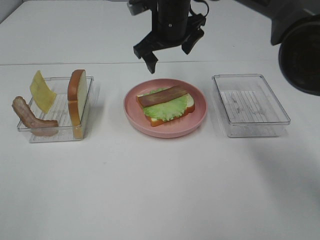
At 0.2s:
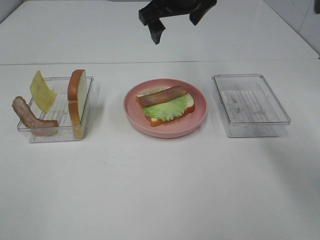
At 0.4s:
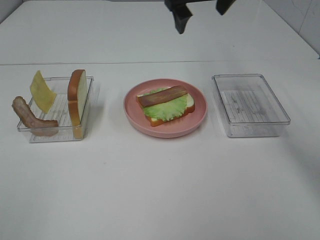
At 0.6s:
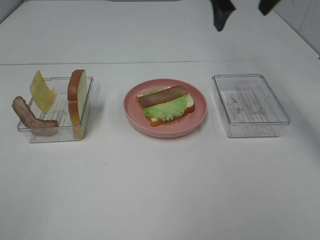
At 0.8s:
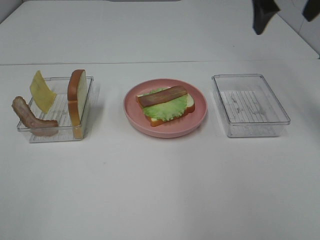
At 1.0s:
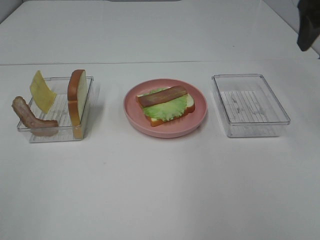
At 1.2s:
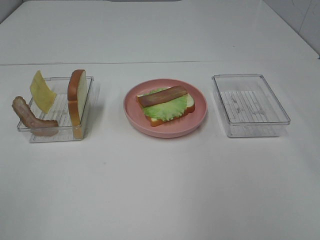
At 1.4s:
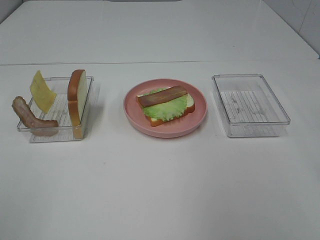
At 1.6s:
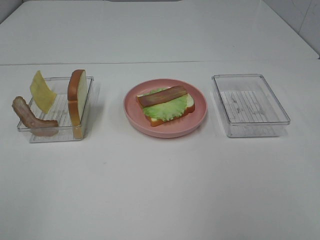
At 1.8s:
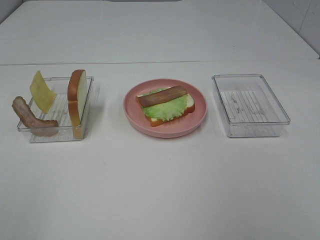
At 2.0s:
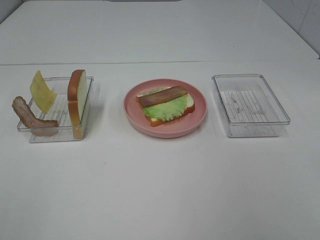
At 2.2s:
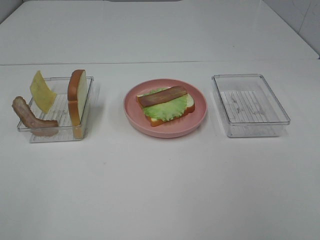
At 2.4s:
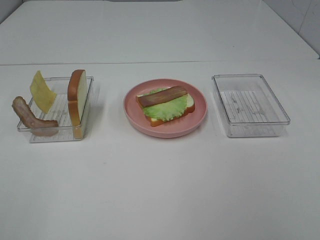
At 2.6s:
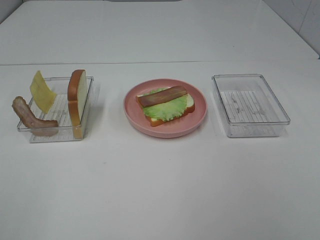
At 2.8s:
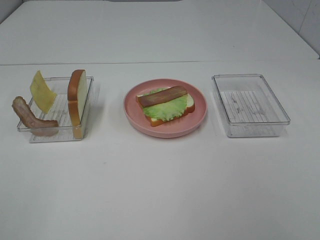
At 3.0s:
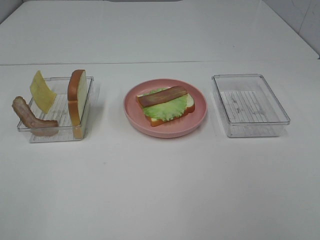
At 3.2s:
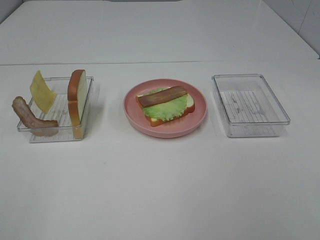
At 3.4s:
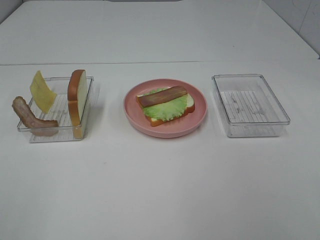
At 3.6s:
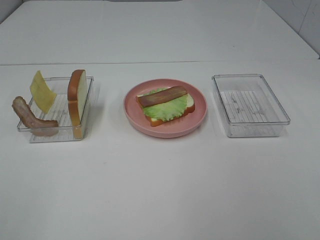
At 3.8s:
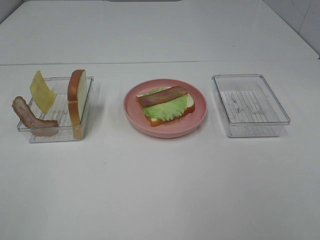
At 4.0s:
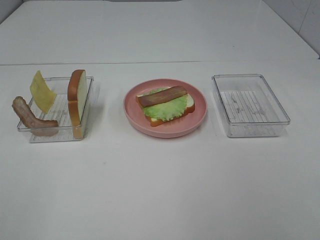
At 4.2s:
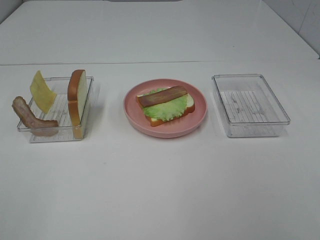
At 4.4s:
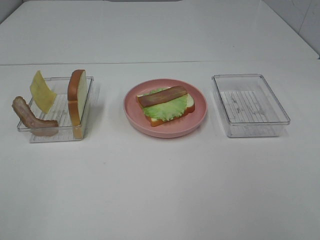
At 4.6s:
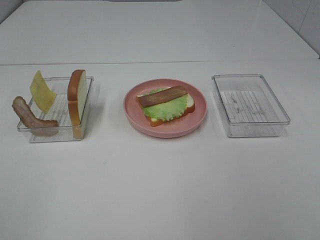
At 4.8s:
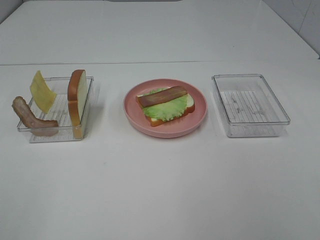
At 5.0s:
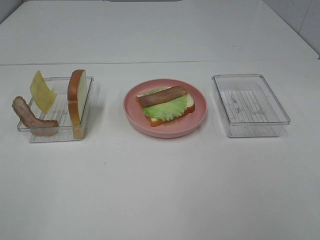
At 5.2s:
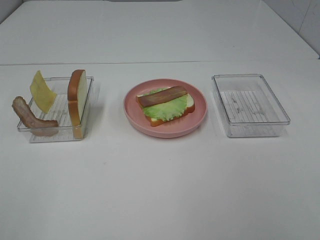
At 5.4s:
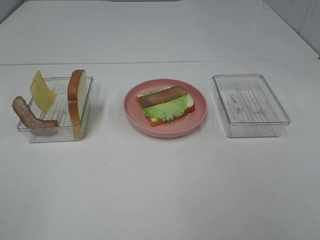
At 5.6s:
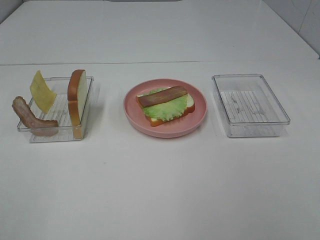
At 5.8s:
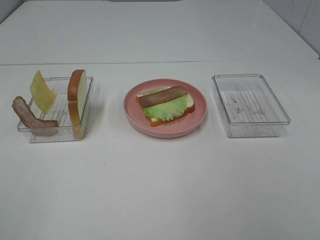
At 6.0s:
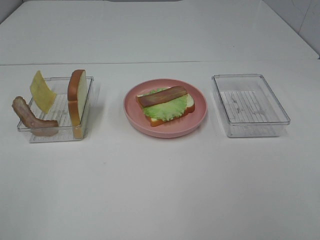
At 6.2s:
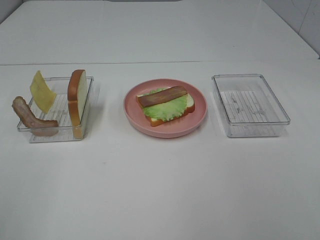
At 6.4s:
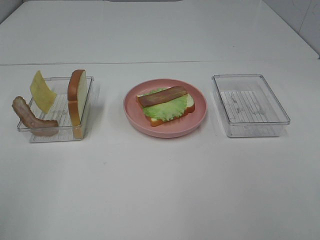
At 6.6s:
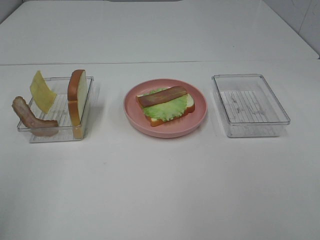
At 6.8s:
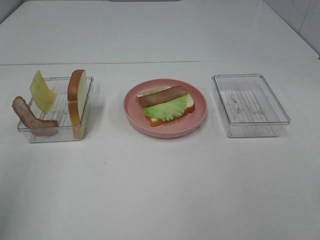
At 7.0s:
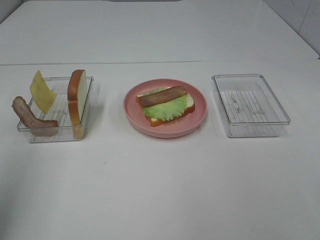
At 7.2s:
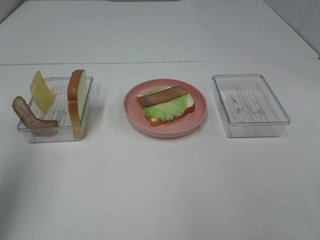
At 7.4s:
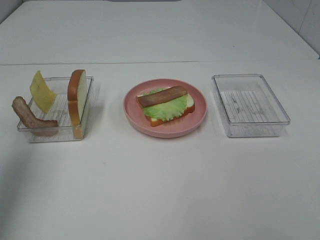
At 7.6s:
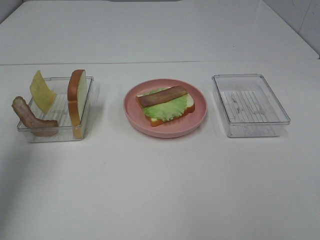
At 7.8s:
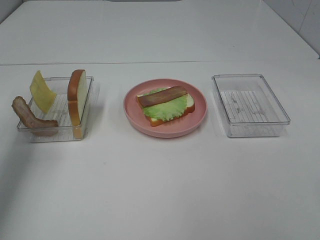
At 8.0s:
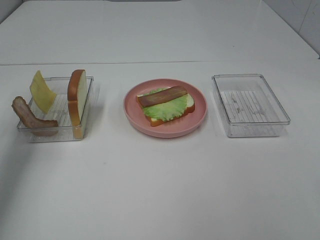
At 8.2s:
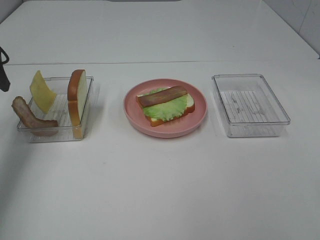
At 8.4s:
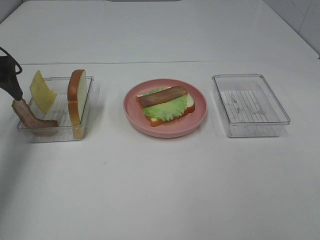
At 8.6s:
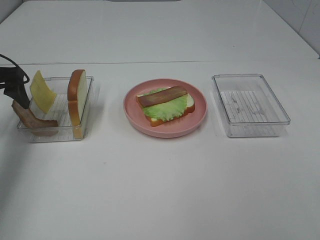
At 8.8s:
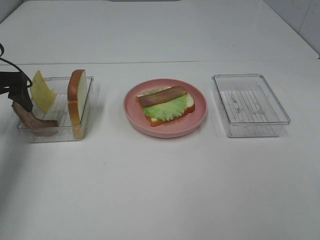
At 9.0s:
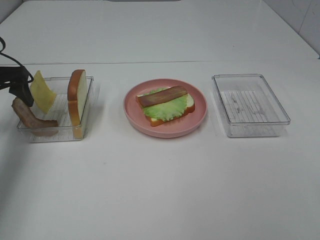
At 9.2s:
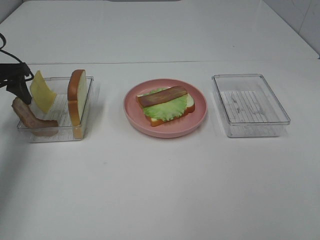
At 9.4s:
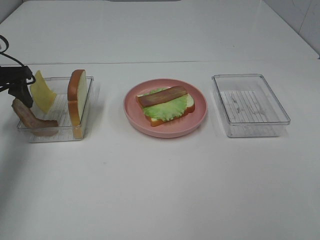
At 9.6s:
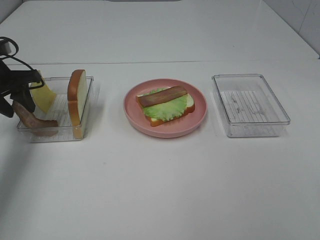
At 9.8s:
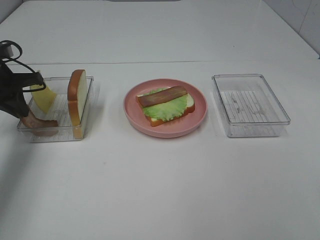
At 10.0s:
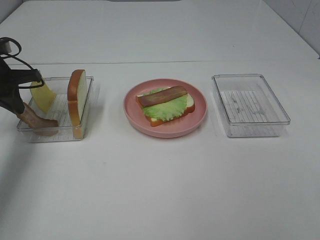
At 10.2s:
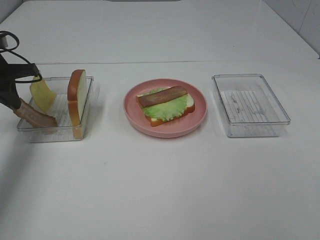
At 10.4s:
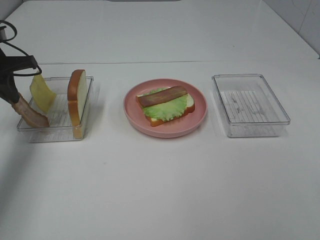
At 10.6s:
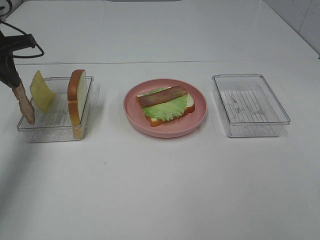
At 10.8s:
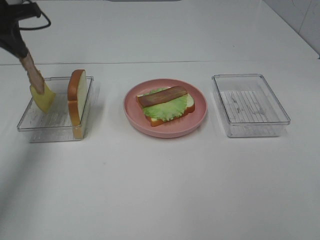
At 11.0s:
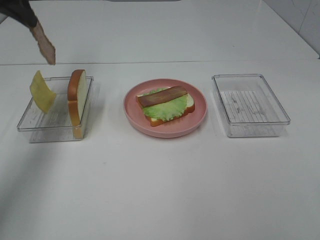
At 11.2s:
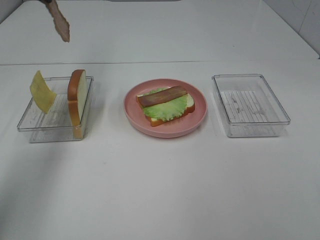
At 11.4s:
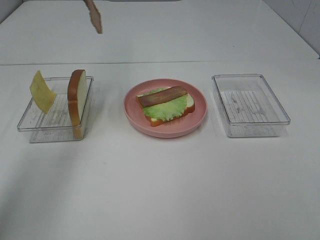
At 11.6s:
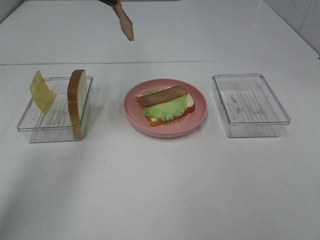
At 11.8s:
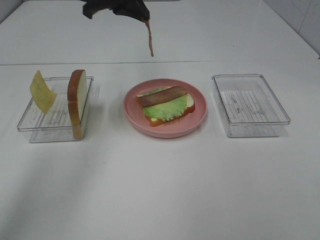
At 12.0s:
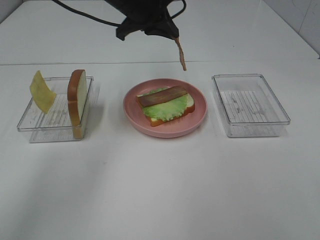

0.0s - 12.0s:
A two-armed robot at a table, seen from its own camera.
Task of the whole recording: Make sandwiches.
Step, 0.0s - 10.2s: Left hand:grab the bacon.
0.0s - 1.6s: The right gripper moves backward and to the right, approximately 40 cm.
3.0s - 4.4s: The two grippers keep their place.
6.0s - 7.6s: The left gripper goes some 25 cm forward.
7.6s - 9.0s: The left gripper heads downward and forward, covering some 20 cm.
9.0s - 10.4s: The left gripper closes its fingers.
10.4s - 12.0s: The left gripper shifts approximately 25 cm to the right.

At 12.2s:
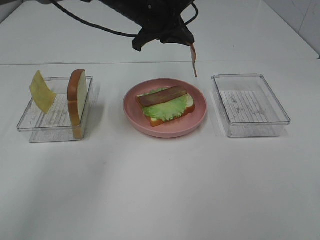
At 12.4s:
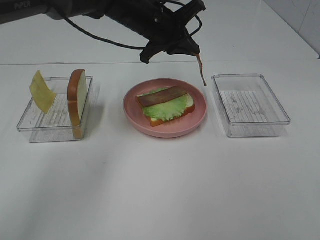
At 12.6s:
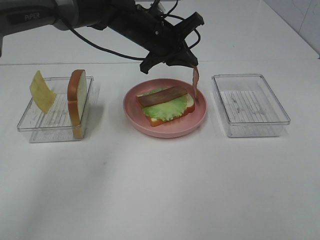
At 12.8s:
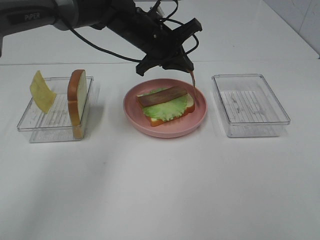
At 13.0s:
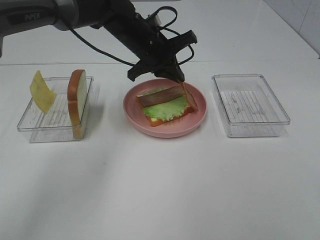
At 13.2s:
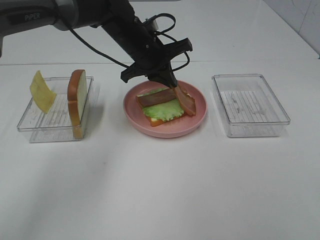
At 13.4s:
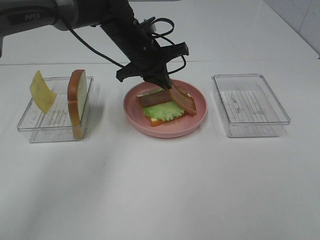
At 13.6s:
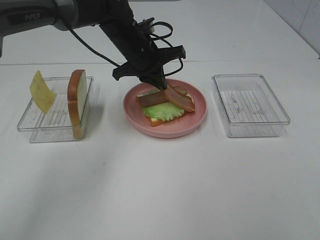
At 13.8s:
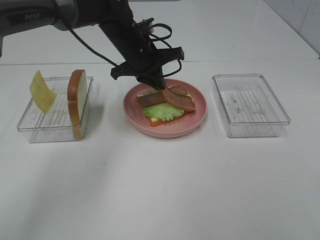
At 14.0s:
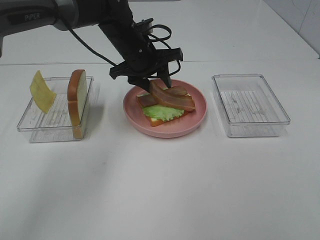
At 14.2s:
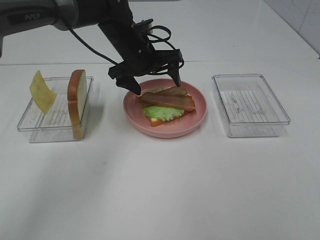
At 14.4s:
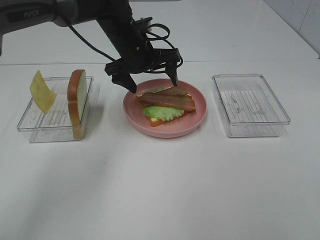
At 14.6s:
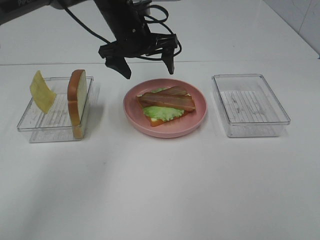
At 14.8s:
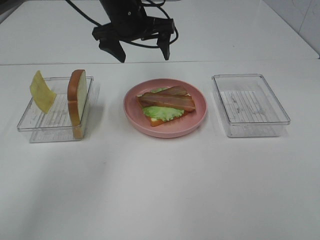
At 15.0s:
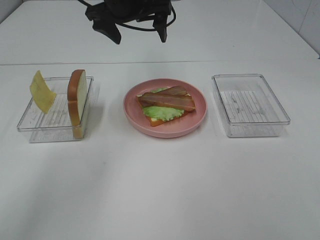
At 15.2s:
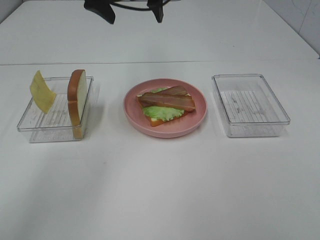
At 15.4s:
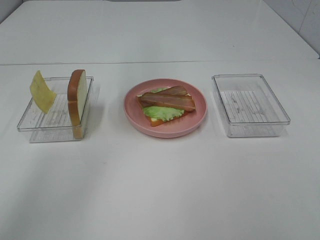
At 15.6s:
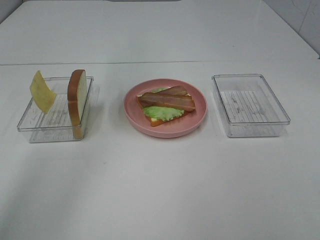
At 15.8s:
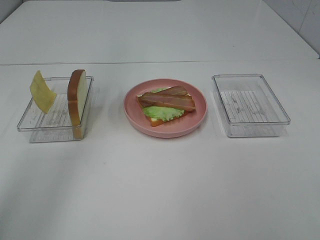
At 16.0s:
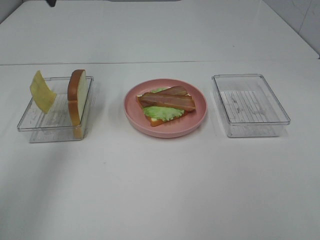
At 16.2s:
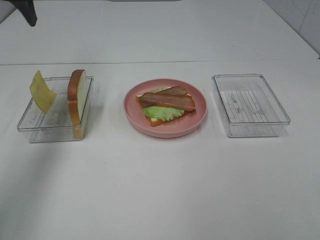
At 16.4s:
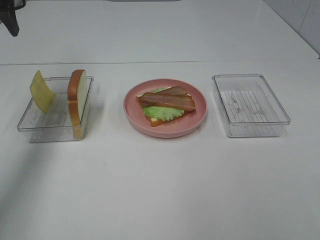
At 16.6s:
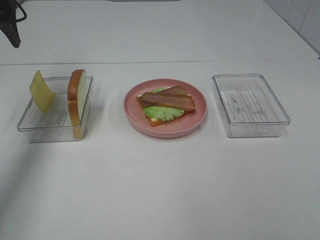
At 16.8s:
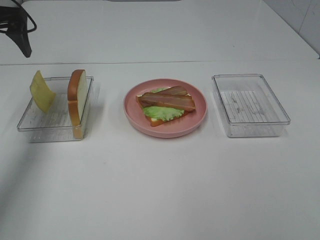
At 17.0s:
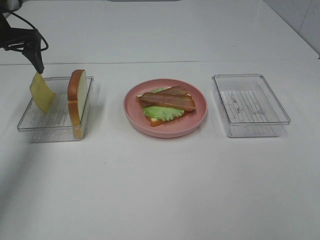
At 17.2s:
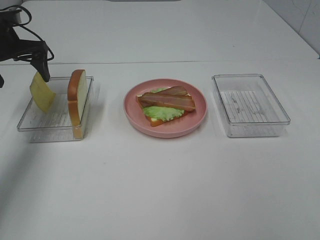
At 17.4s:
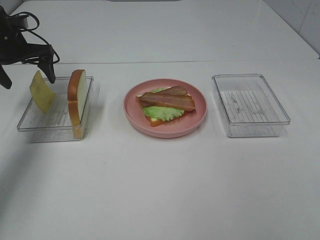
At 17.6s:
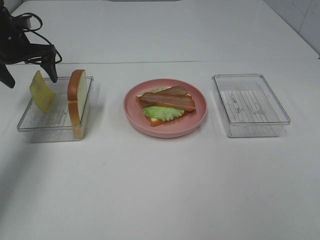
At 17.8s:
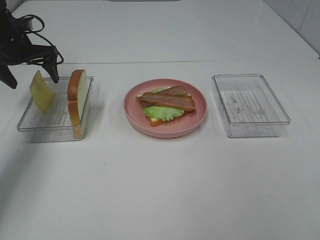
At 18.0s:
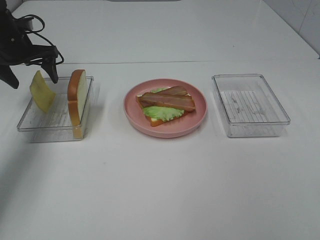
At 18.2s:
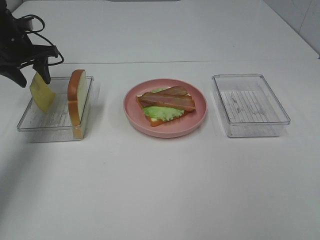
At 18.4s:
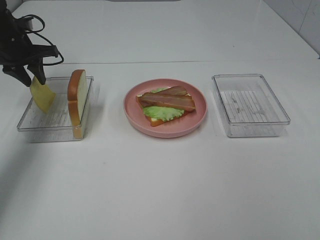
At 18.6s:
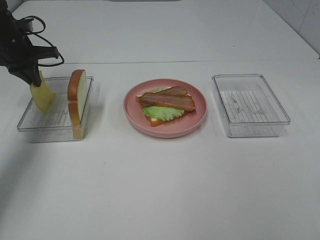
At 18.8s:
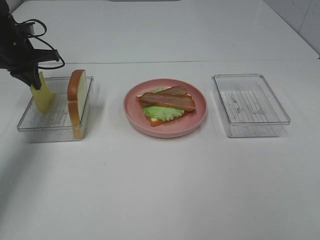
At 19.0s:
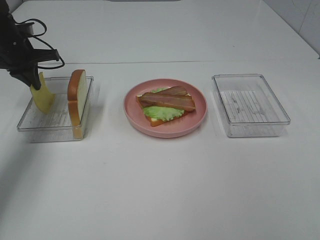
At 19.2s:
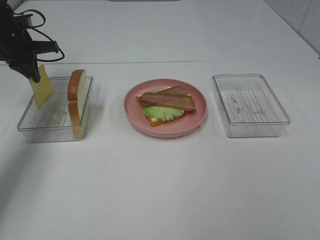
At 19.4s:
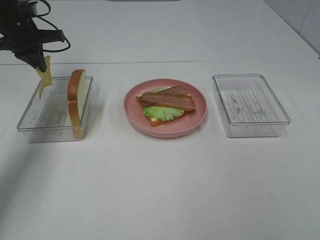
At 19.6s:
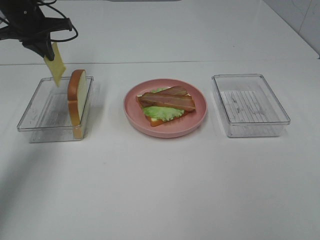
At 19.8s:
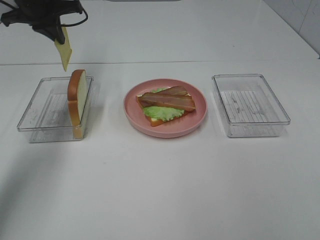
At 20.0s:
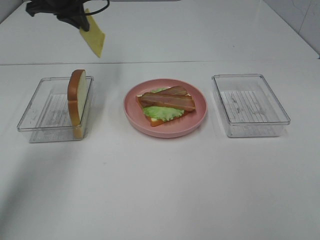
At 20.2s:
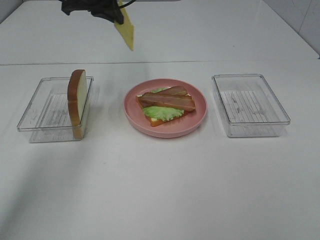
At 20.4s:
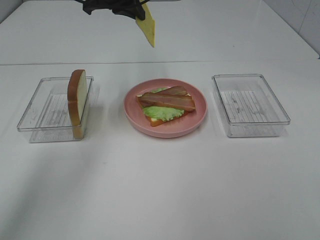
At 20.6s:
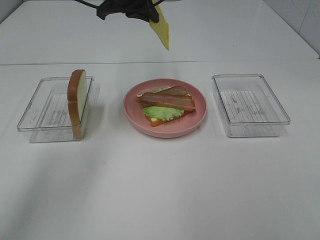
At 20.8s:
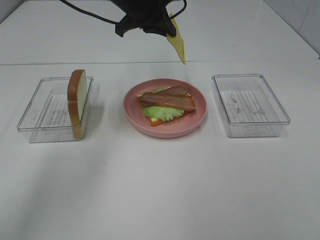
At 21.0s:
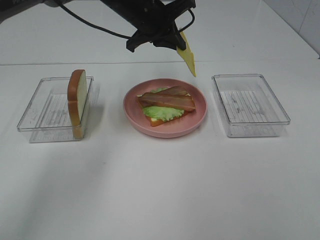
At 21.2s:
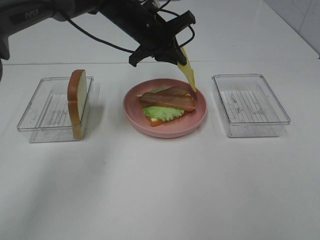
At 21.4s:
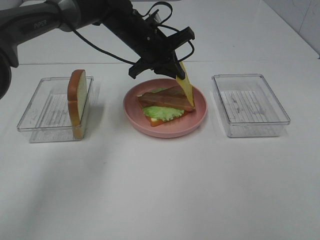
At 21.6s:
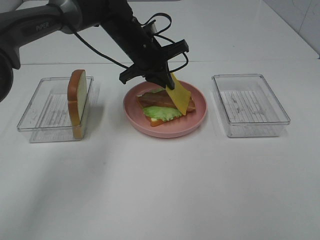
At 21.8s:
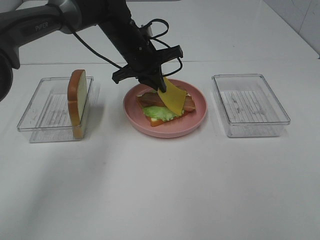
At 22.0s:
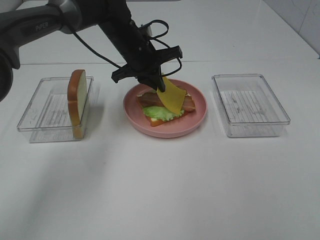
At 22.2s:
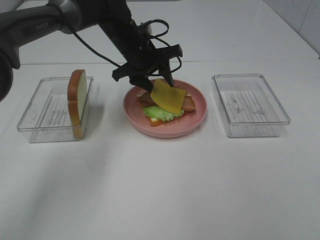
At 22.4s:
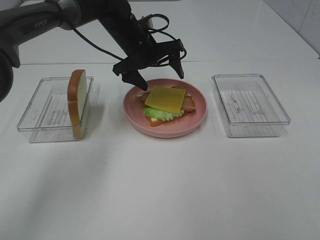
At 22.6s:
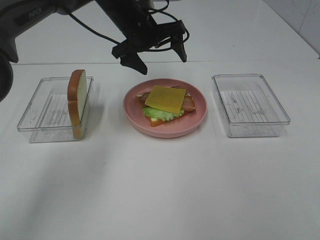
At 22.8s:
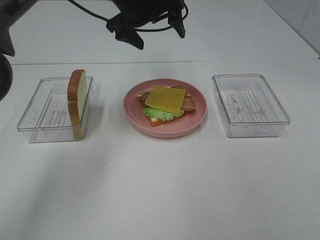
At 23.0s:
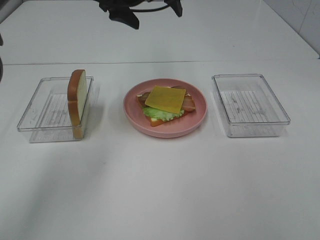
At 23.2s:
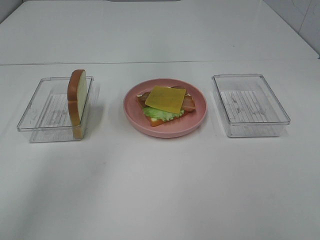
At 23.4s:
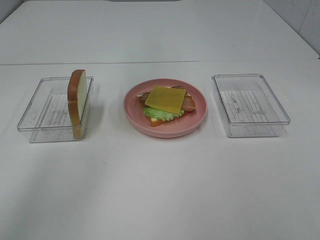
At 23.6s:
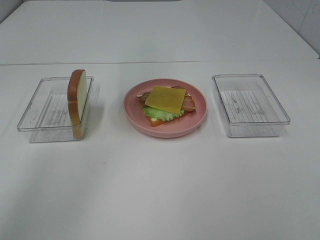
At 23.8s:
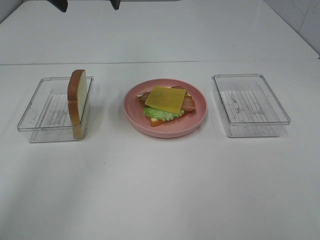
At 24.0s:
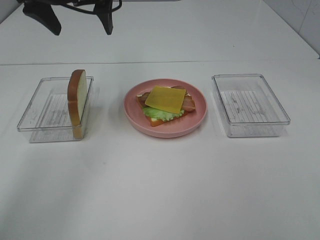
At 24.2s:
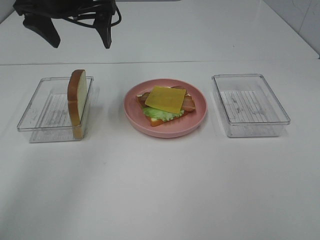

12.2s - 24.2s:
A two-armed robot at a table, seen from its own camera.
Task of the whole recording: Make sandwiches.
Step, 12.2s - 14.8s: Left hand:place bacon on bacon.
12.2s - 13.8s: The left gripper moves downward, some 5 cm.
13.8s - 15.2s: The left gripper shifts approximately 15 cm upward, and opens.
15.2s - 16.6s: The left gripper heads to the left, covering roughly 25 cm.
16.6s - 18.2s: The left gripper heads downward and forward, covering roughly 15 cm, and closes up.
18.2s - 19.8s: The left gripper travels upward and to the right by some 10 cm, and closes.
19.8s - 21.2s: The left gripper heads to the right, covering some 20 cm.
21.2s - 22.6s: The left gripper opens its fingers.
22.6s - 24.2s: The left gripper shifts about 15 cm to the left, upward and backward.
